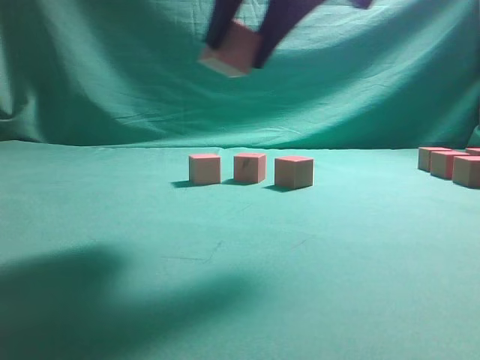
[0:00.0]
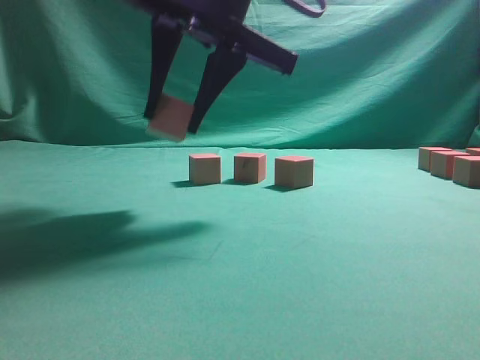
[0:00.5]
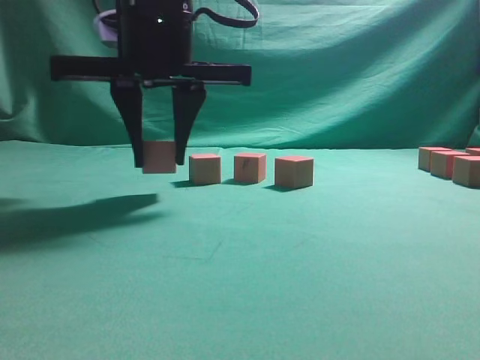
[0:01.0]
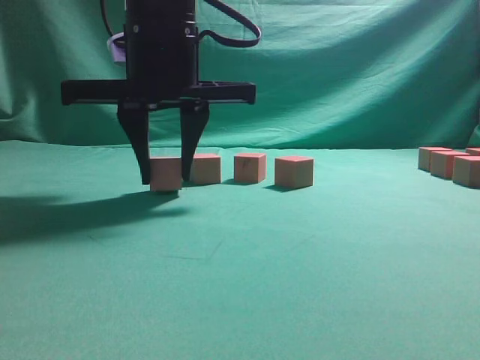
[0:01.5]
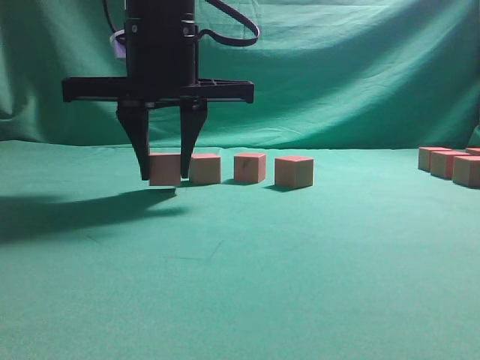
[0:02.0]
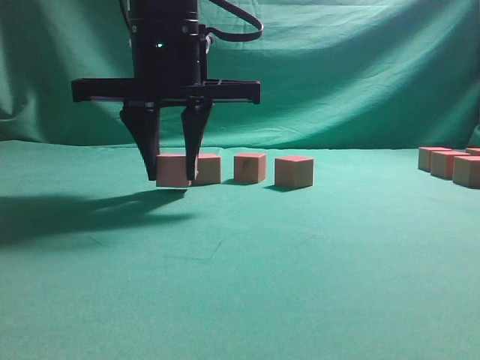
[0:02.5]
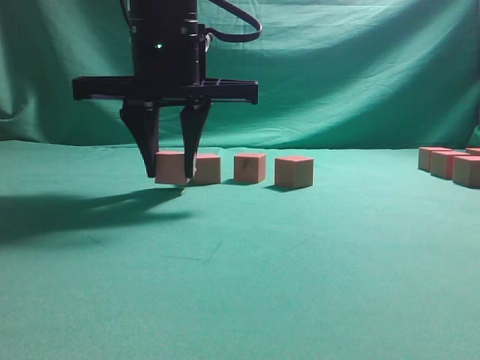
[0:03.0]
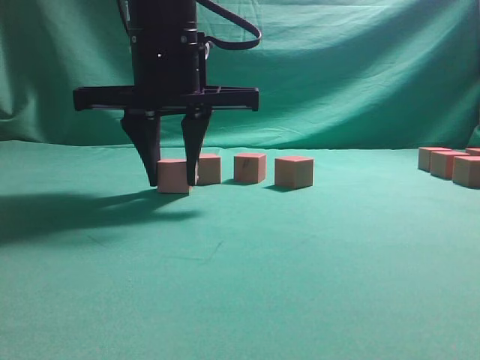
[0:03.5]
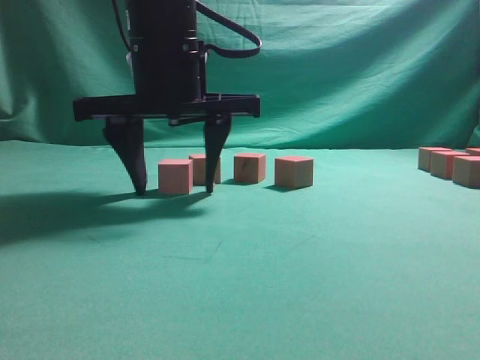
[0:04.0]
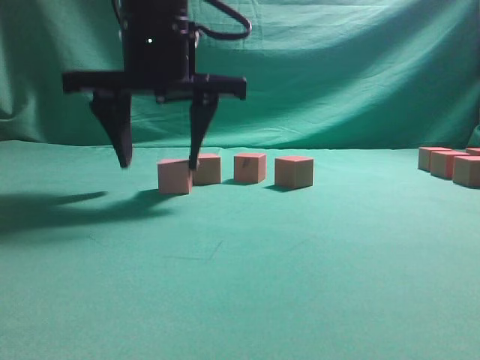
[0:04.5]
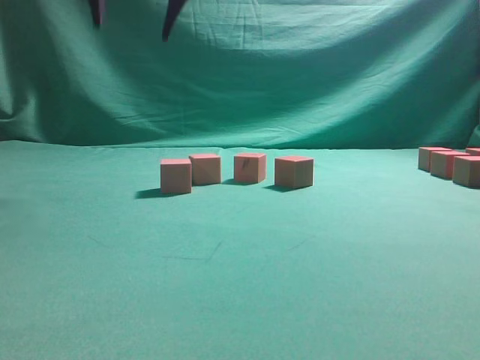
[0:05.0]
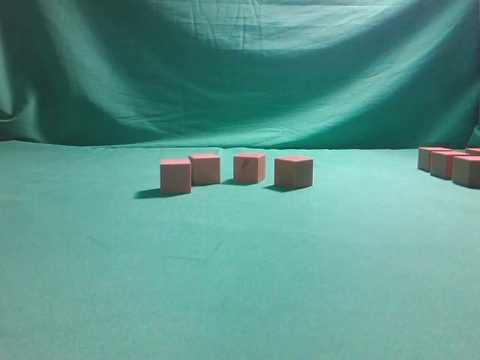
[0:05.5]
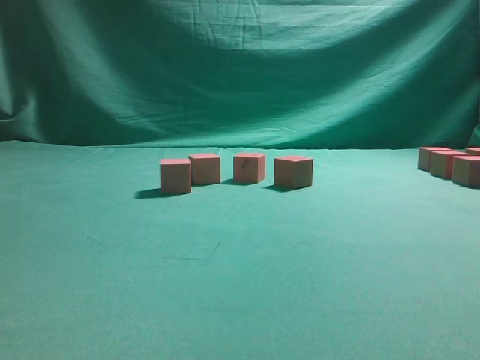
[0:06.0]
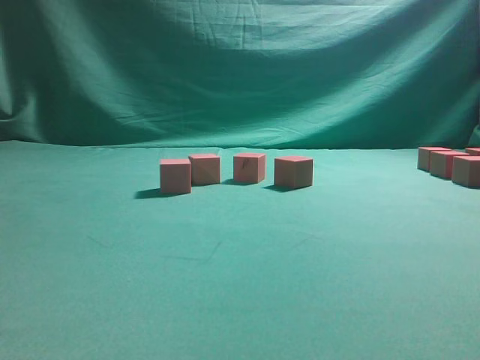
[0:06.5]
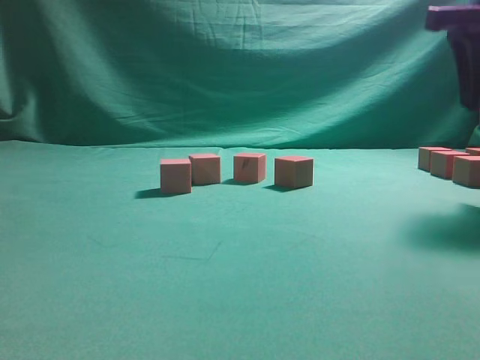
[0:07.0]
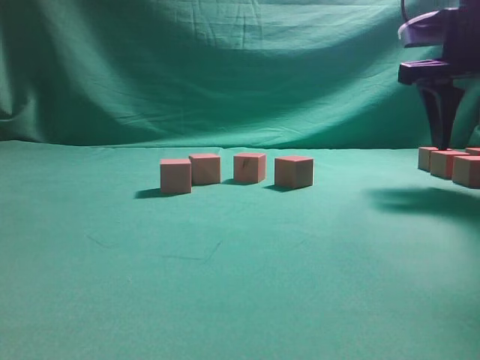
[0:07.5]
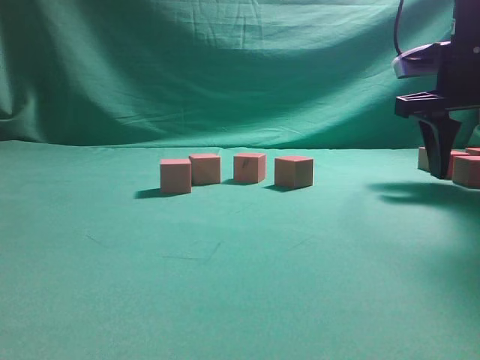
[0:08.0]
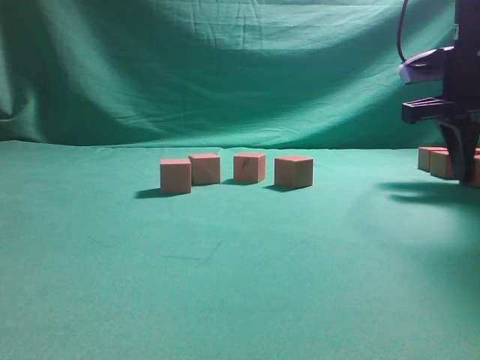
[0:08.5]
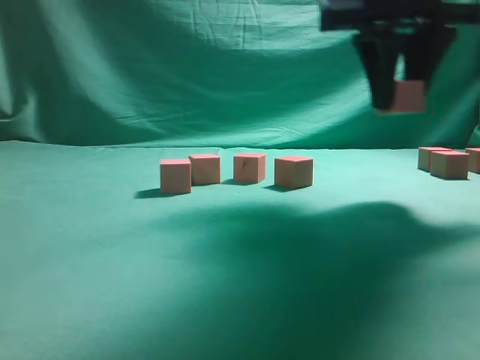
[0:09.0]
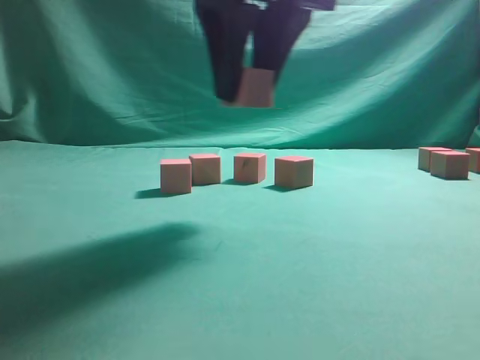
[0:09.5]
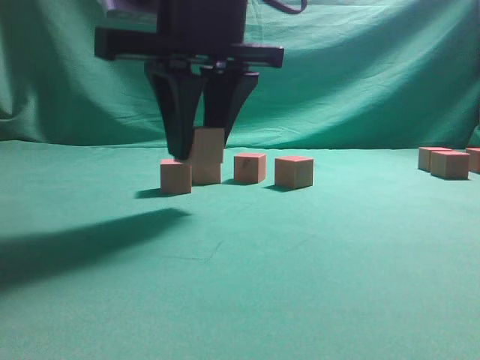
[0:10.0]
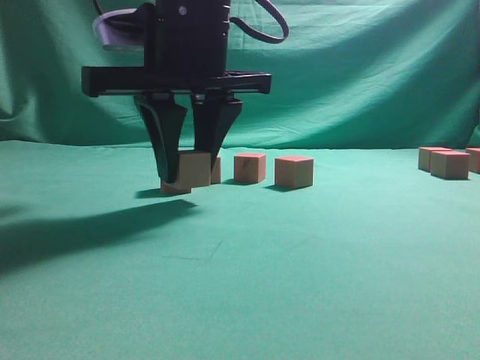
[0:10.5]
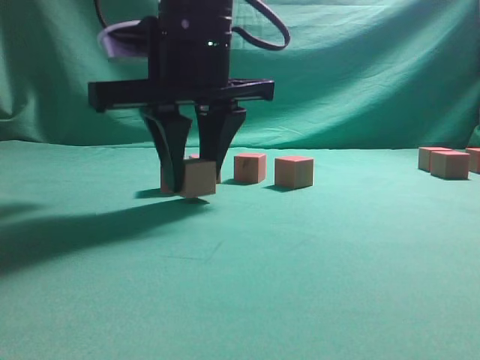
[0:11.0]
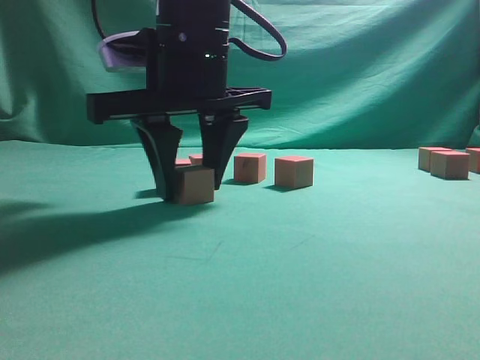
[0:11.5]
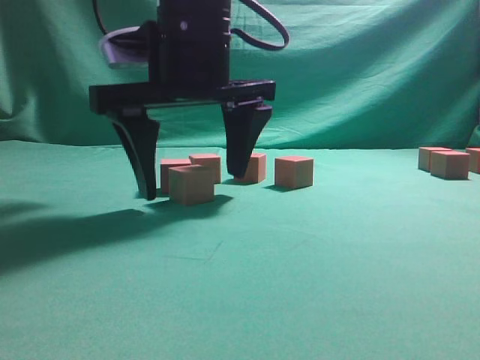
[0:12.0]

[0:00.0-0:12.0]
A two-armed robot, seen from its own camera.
Task of the whole recording: pick up the multiple cubes in two columns one by one and place them in another position on the table.
Step, 0:00.0 to 0:04.5: Place the block at the correct position to assemble the letter S.
Step, 0:05.0 to 0:09.0: Pick up the block on the table.
0:00.0 to 0:02.0: The right gripper is displaced to the left, downward and forward by some 15 cm.
0:02.0 to 0:04.0: The grippers move only a little.
0:04.0 to 0:06.0: The right gripper is displaced upward and to the right by approximately 35 cm.
0:06.0 to 0:08.0: The right gripper goes roughly 30 cm downward, forward and to the right.
0:08.0 to 0:10.0: The right gripper heads to the left, covering approximately 25 cm.
0:10.0 to 0:12.0: The right gripper opens up.

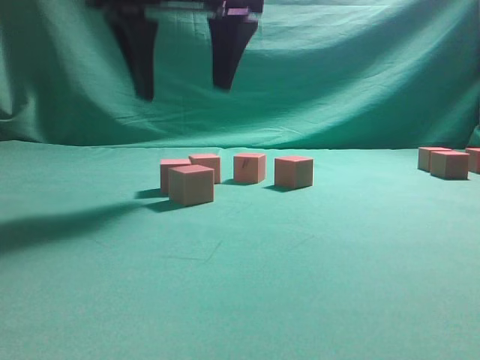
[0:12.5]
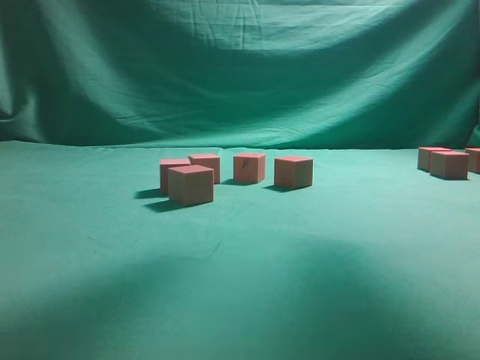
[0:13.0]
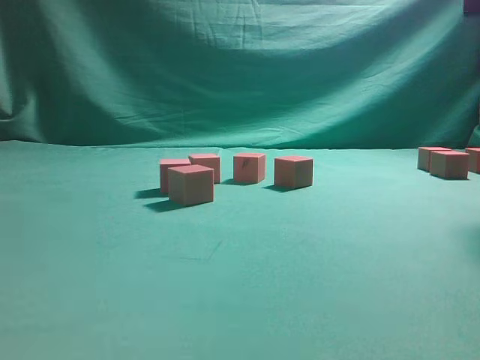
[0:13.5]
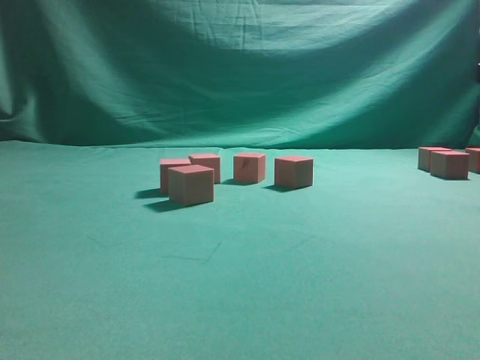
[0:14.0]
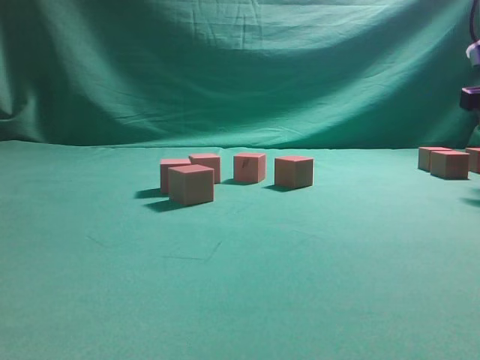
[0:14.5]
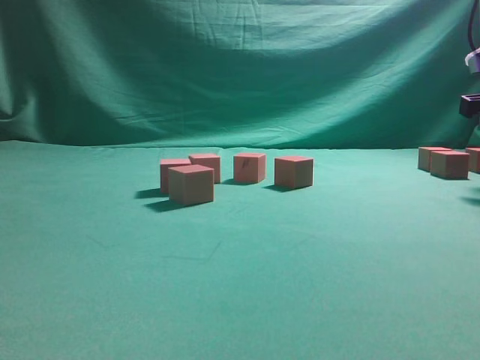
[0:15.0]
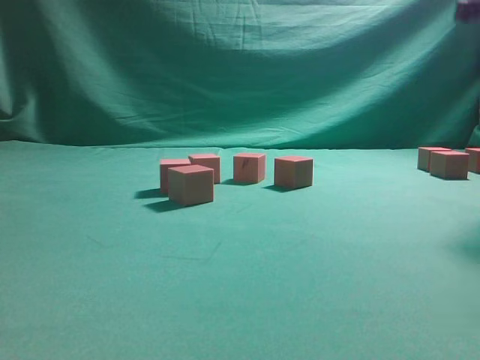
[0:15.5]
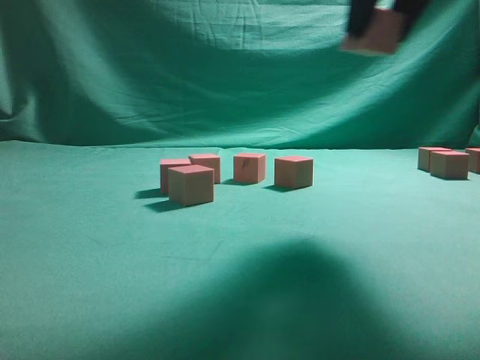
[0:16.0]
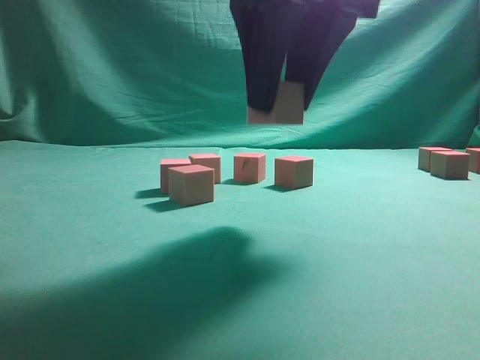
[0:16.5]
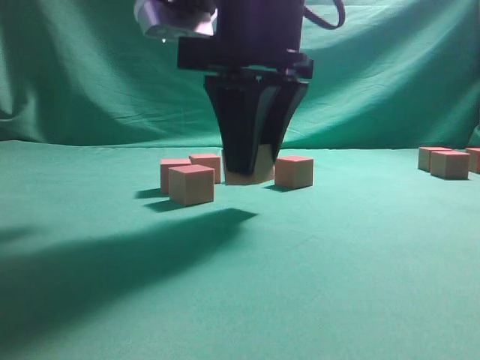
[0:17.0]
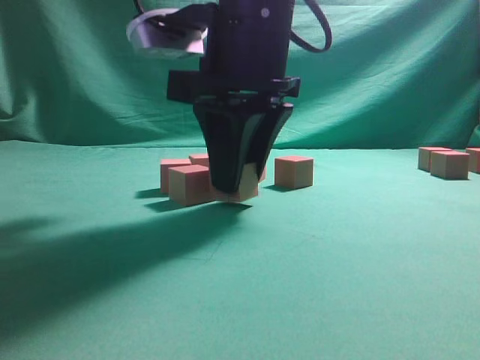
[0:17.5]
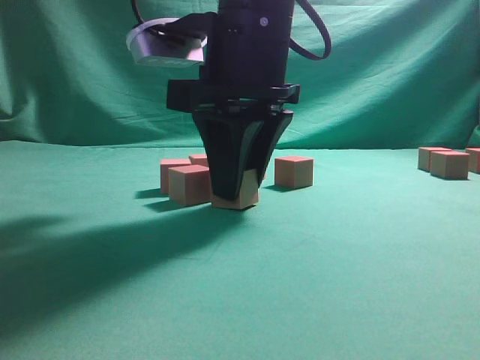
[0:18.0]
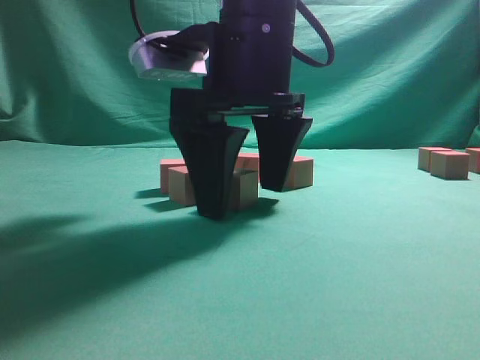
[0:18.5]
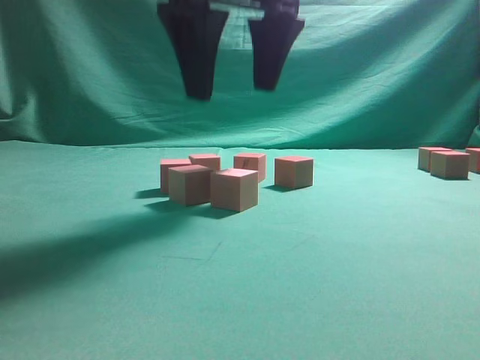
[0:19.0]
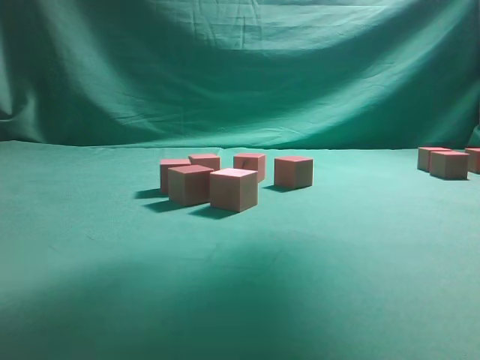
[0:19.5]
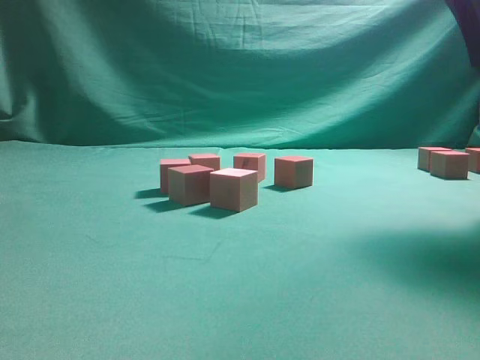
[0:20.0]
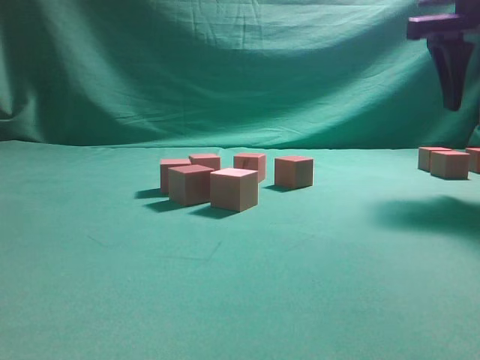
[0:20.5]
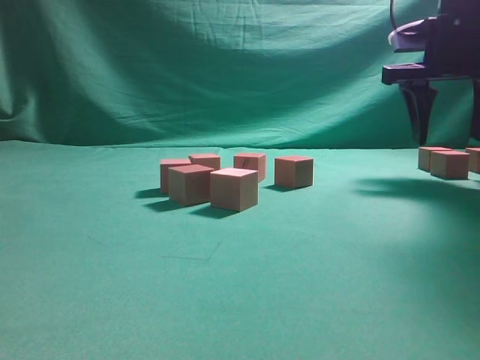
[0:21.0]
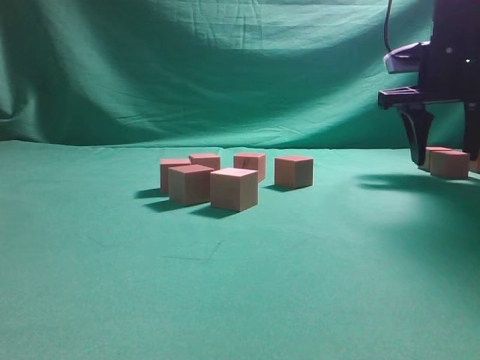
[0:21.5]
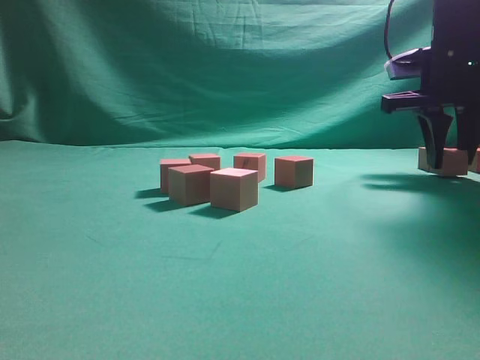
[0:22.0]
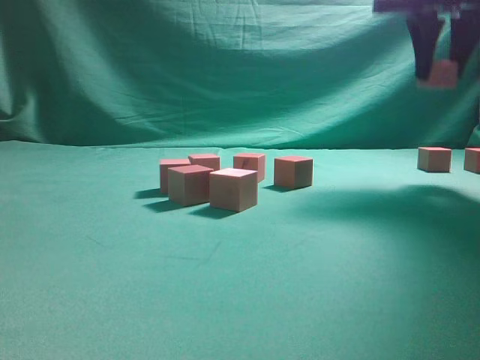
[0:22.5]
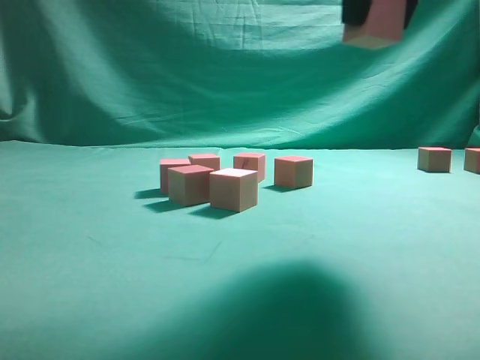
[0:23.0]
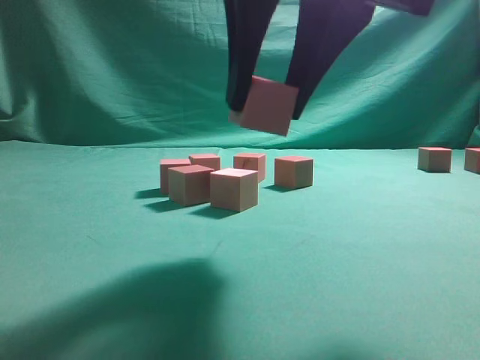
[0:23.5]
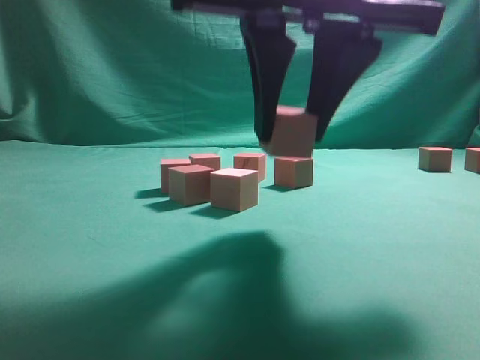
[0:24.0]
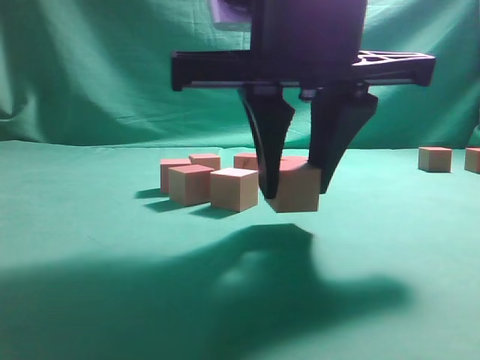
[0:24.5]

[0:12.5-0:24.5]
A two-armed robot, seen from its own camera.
Task of the whole recording: pick up the multiple cubes in two columns one by one and place them in another position on the table.
Step, 0:13.0 to 0:15.5: Pick up the block on the table.
Step, 0:16.0 to 0:19.0: Place the block at the correct position to assemble the letter S.
Step, 0:19.5 to 0:22.5: Pick up the block on the table.
0:12.5 to 0:14.5: The right gripper is displaced to the right by some 35 cm.
0:14.5 to 0:16.5: The right gripper heads to the left and backward, covering about 25 cm, and closes up.
0:16.5 to 0:18.5: The right gripper shifts approximately 10 cm downward, and opens up.
0:18.5 to 0:20.5: The right gripper moves to the right, approximately 25 cm.
0:20.5 to 0:22.5: The right gripper heads forward, covering approximately 5 cm, goes downward and returns, approximately 5 cm each way, and closes.
0:22.5 to 0:24.5: The right gripper shifts some 30 cm backward, to the left and downward.

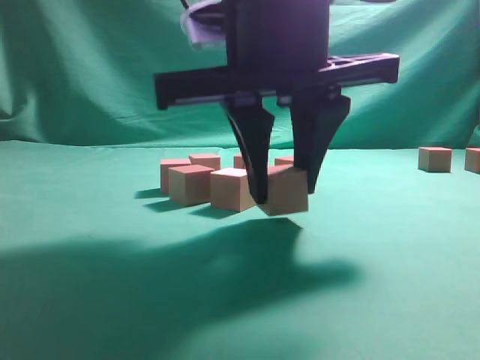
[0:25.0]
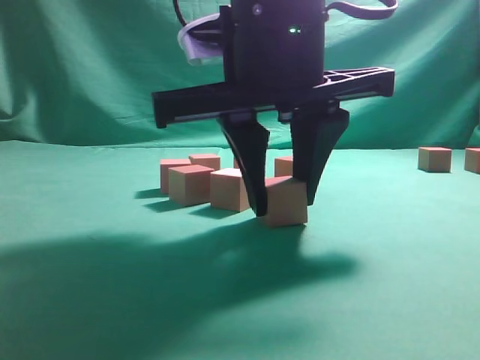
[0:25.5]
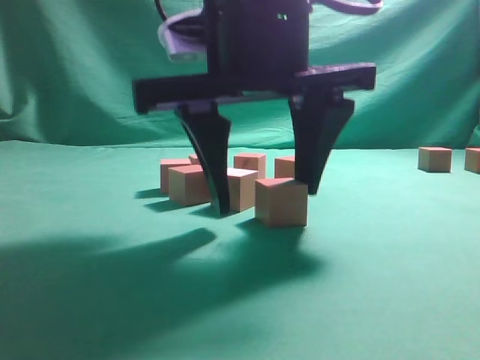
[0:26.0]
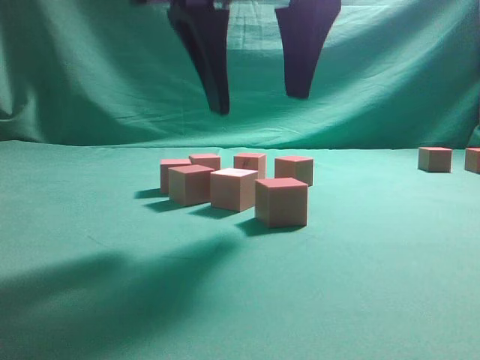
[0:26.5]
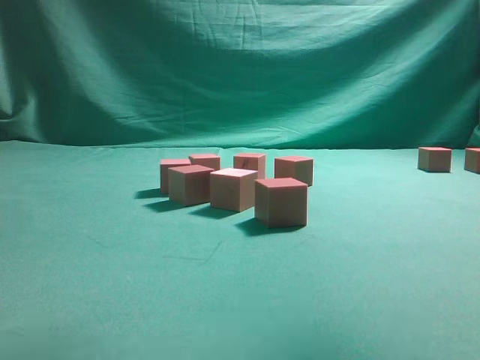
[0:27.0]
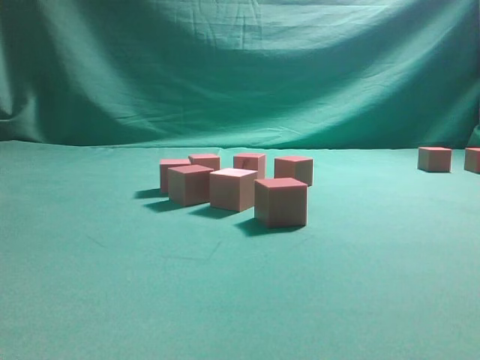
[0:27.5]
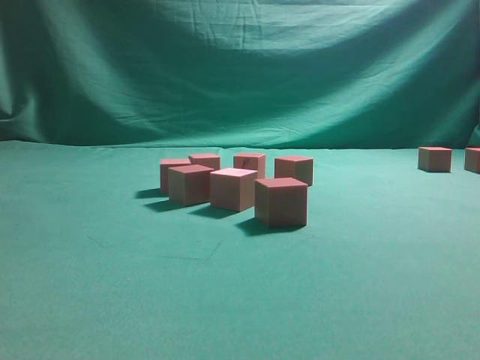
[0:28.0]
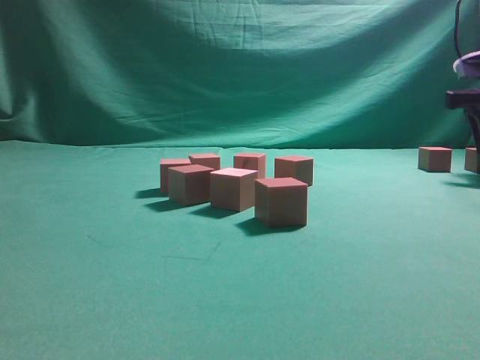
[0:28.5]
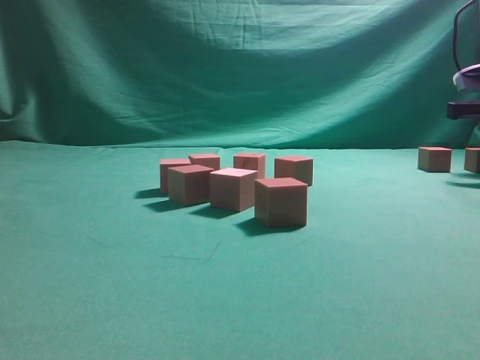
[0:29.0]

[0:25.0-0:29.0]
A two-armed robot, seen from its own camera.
Task of the whole recording: pick up the multiple cubes in two columns one by one and place them in another position on the table.
0:25.0 to 0:27.0: The right gripper heads upward and to the right, covering roughly 20 cm.
0:27.0 to 0:29.0: The right gripper moves to the right, downward and forward, approximately 35 cm.
